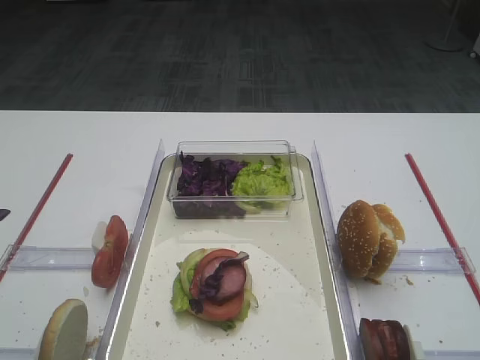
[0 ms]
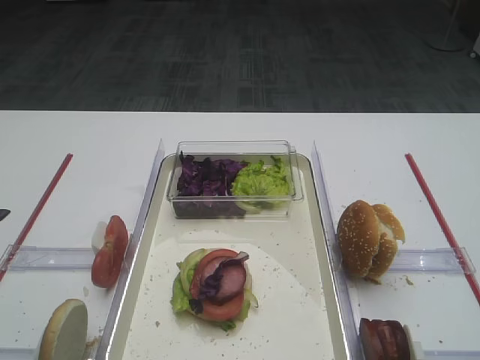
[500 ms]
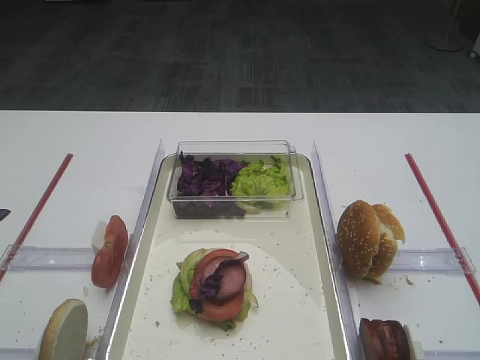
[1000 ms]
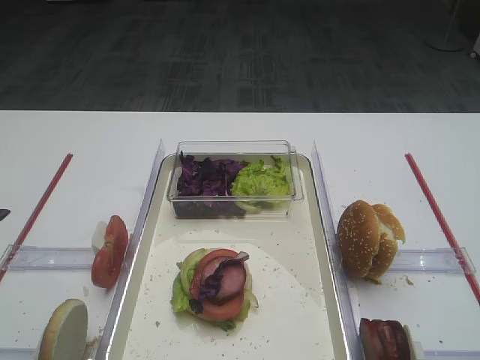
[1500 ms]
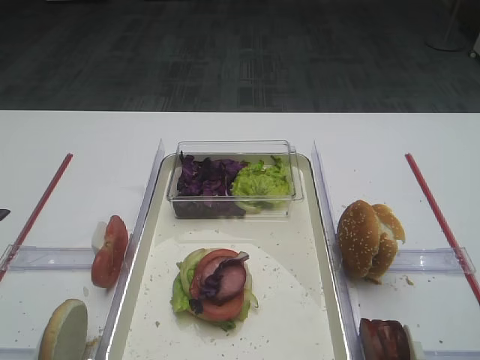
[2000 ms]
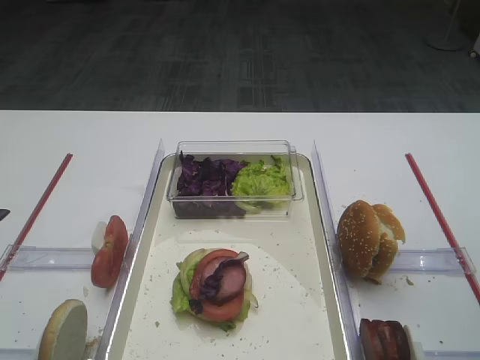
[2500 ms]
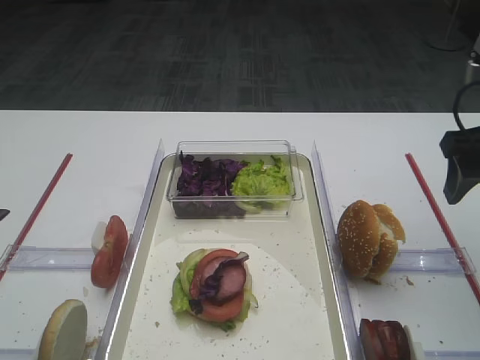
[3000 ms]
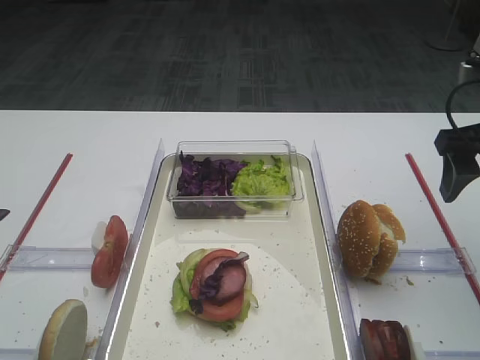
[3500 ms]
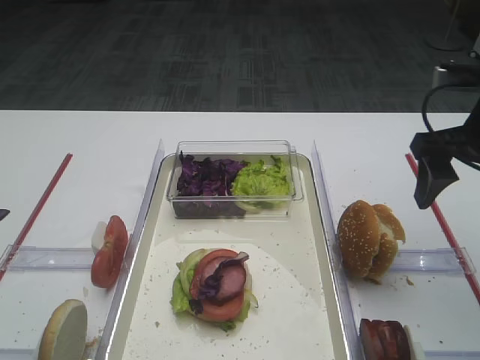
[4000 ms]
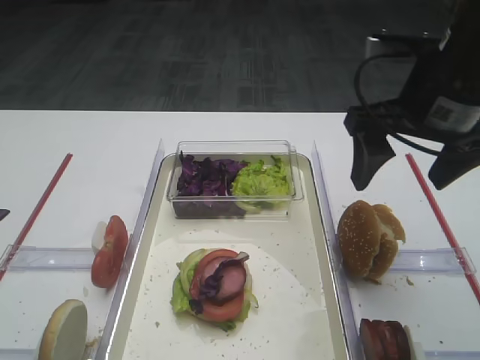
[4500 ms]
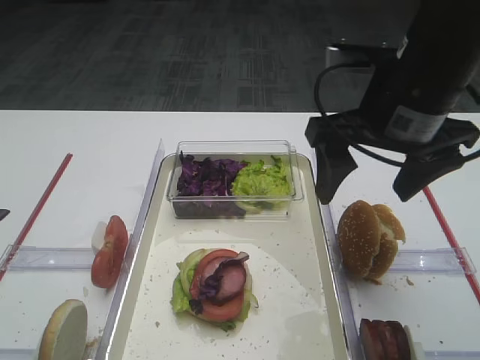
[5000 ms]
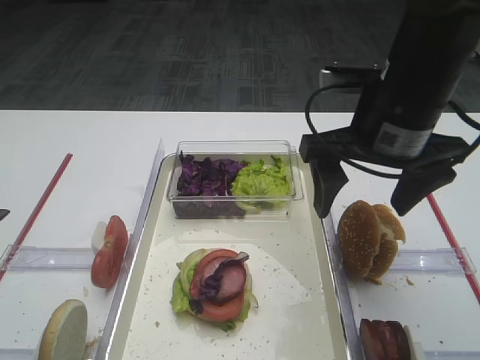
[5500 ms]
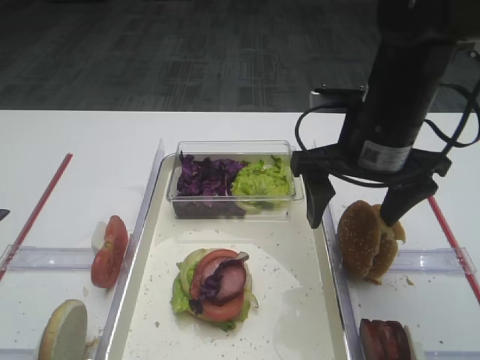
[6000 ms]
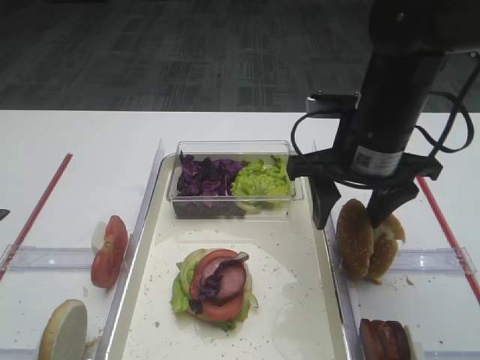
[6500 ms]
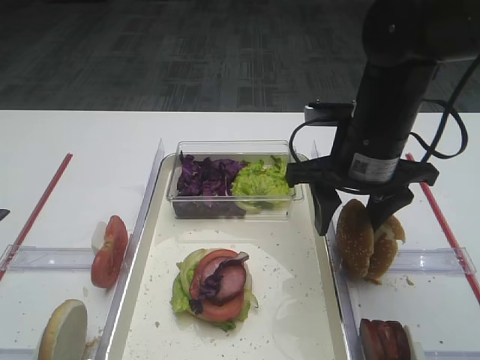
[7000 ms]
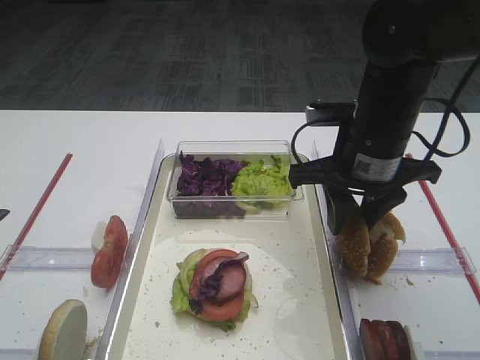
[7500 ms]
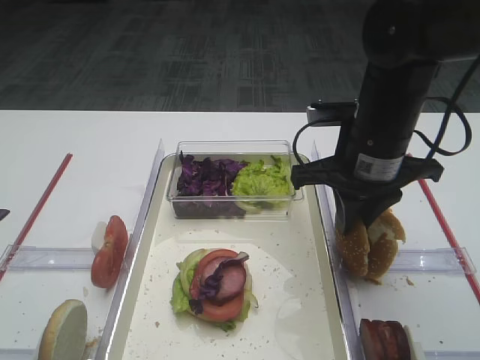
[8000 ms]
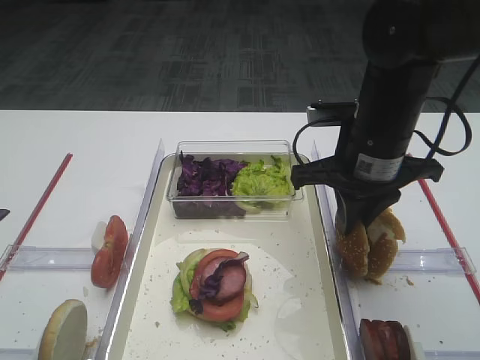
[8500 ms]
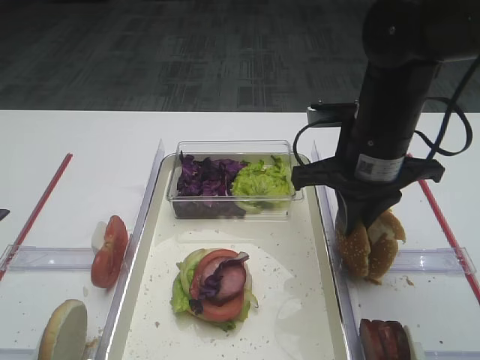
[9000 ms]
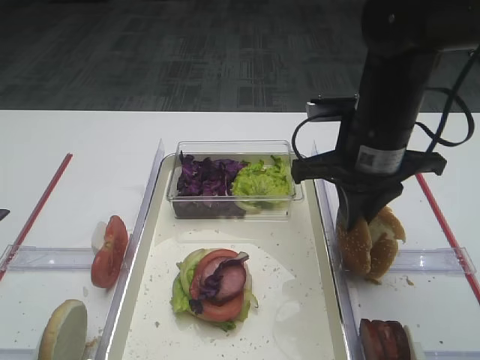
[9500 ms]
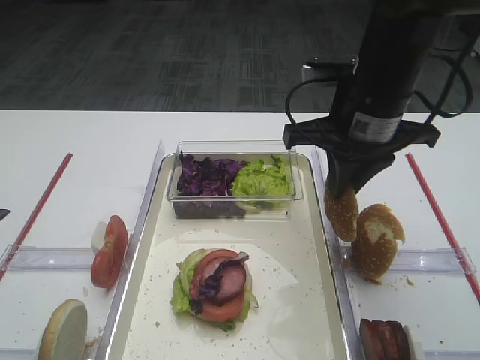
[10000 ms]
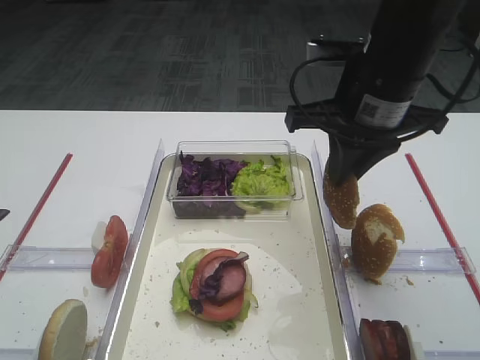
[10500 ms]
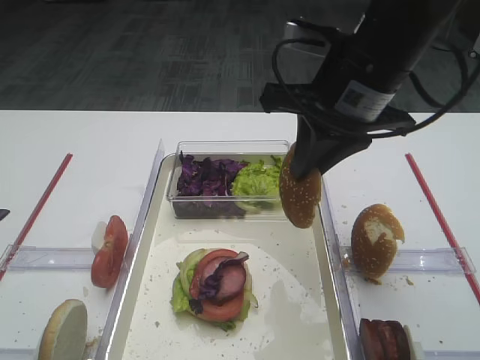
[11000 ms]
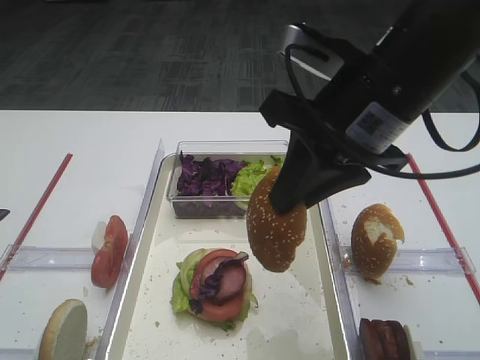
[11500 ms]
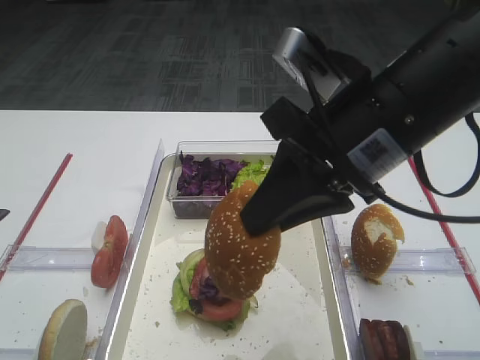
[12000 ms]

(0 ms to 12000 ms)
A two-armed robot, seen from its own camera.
2000 ms - 4000 ms: The right gripper is displaced forward by some 20 cm.
4000 ms - 6000 ms: The right gripper shifts about 10 cm to the left.
6000 ms - 8000 ms: The right gripper closes up.
8000 ms - 10000 ms: The grippers make only small movements.
10000 ms - 12000 ms: The right gripper is displaced backward by some 10 cm.

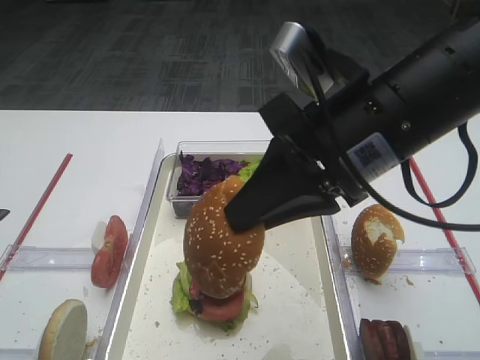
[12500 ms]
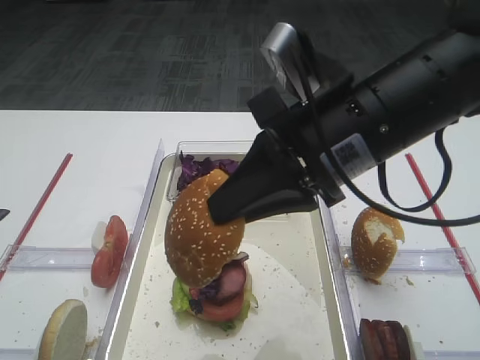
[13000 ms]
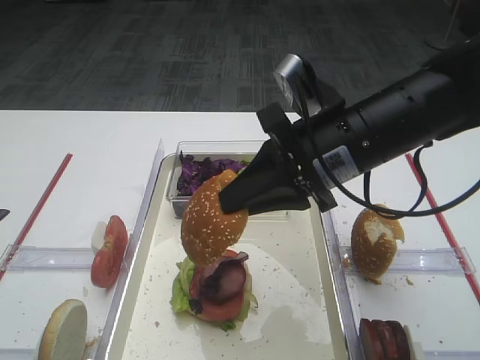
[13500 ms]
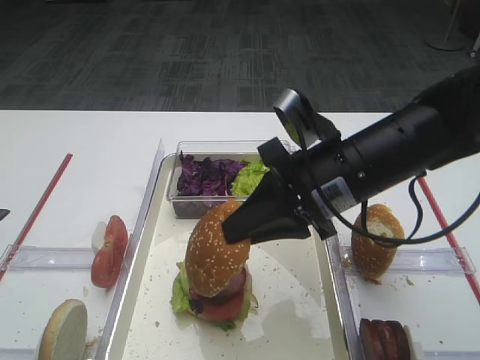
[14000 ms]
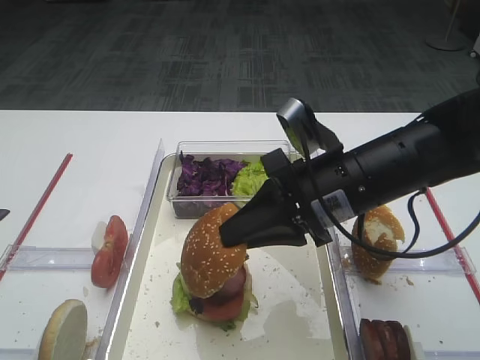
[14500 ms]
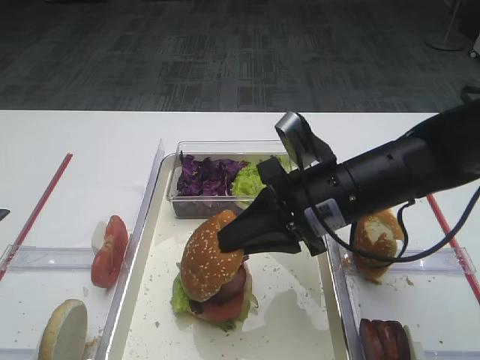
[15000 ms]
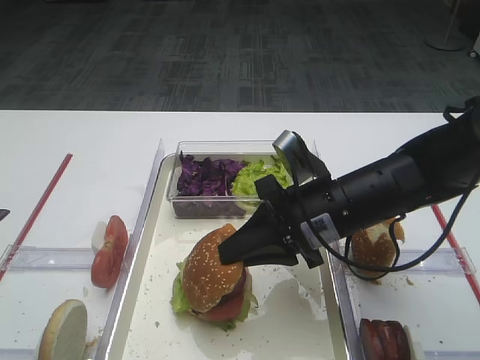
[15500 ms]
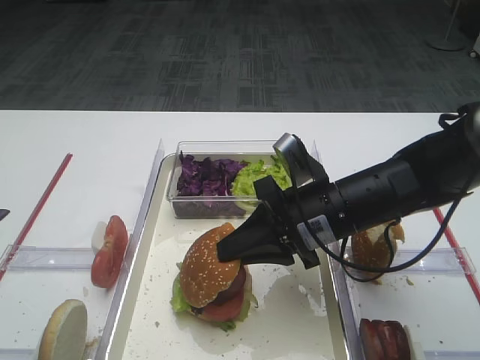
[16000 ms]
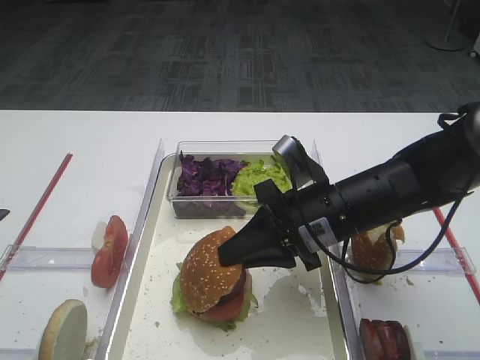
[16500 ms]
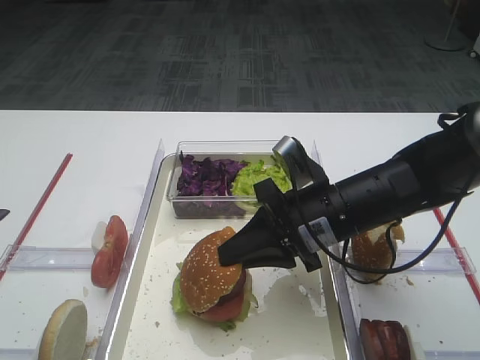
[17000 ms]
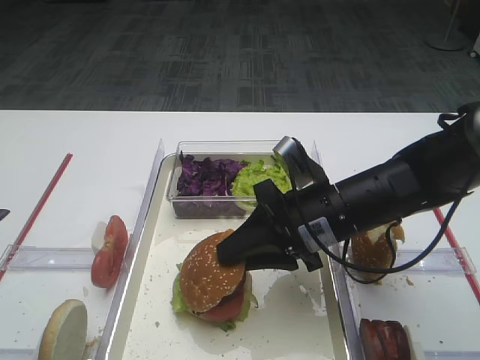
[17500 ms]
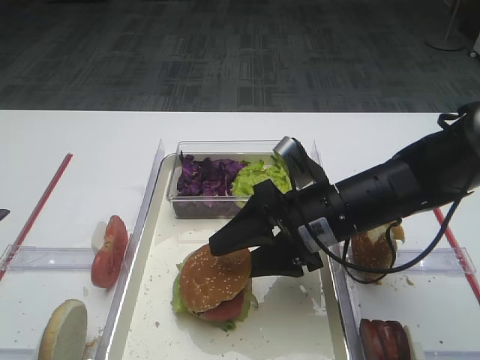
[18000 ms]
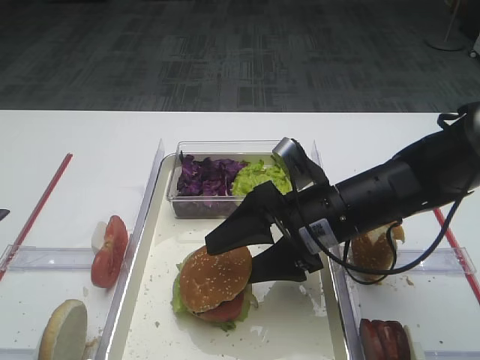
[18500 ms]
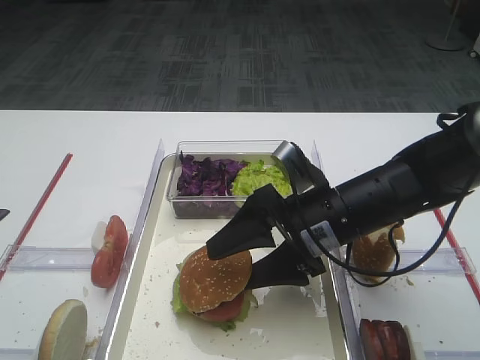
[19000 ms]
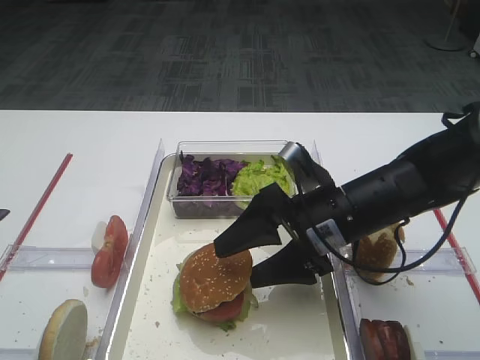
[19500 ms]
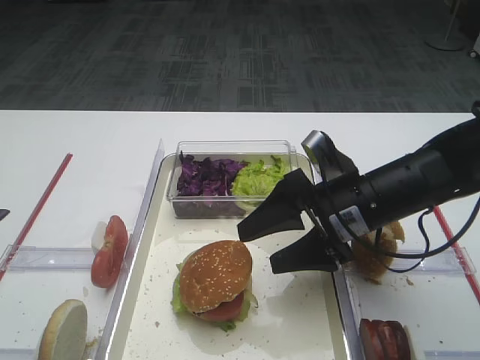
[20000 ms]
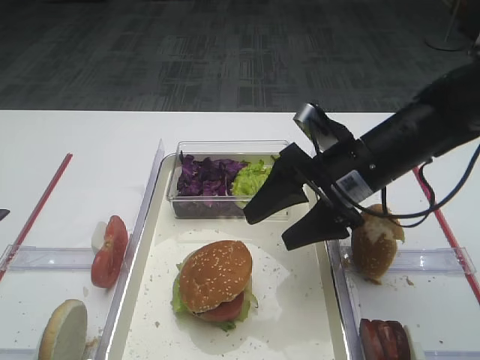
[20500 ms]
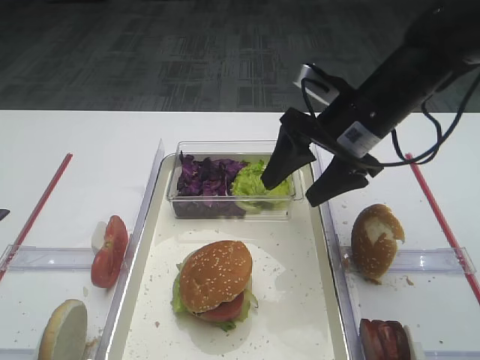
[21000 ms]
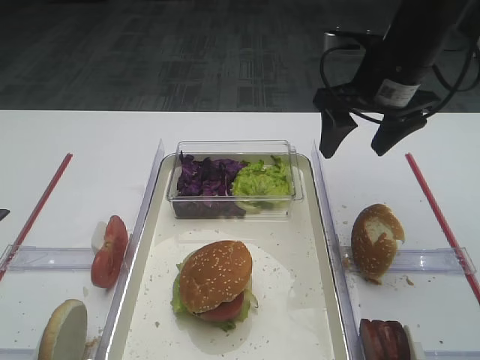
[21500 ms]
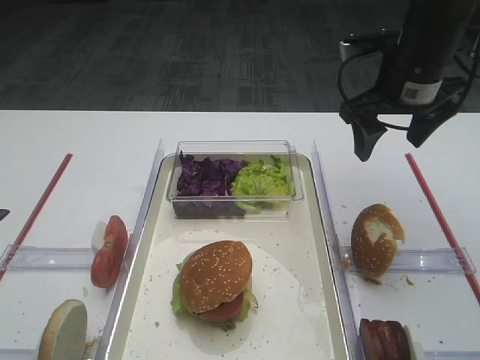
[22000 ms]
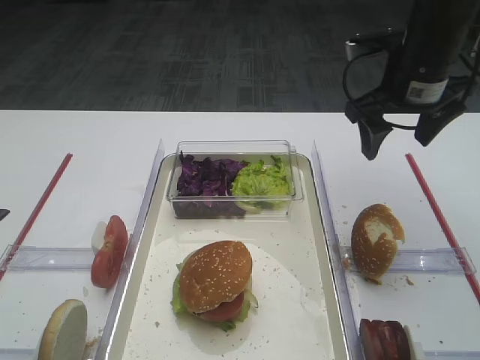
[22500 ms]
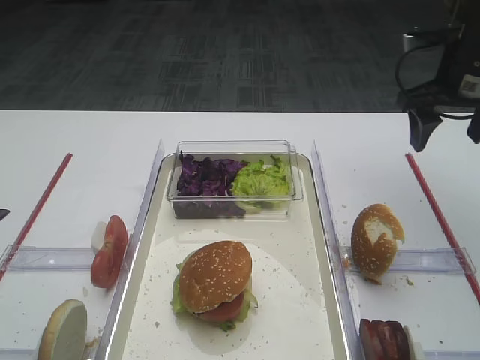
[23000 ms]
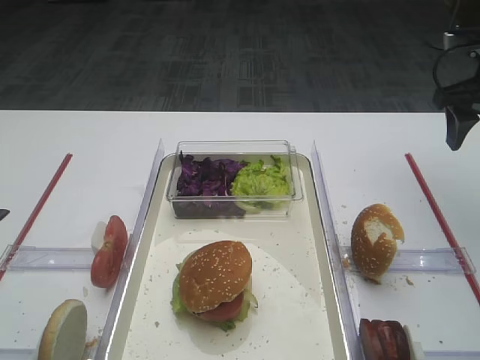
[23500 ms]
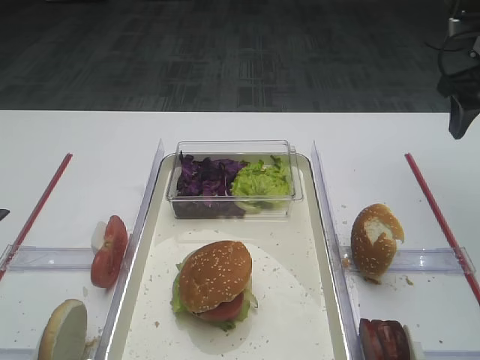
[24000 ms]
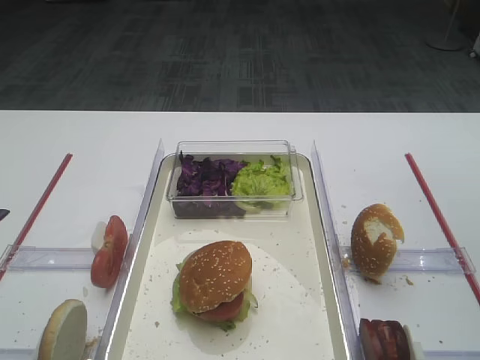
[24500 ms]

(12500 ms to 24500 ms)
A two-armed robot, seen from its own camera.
Step, 12500 ms - 19500 ms: Place the hamburger lid on the purple cabbage with the right gripper.
12500 ms - 14500 ms: The right gripper shifts approximately 10 cm downward.
14500 ms - 16500 ms: The right gripper shifts some 5 cm downward.
16500 ms - 18500 ms: The right gripper opens up.
18500 ms - 20500 ms: The right gripper changes place by approximately 5 cm.
20500 ms - 22500 ms: The right gripper moves upward, forward and to the right, approximately 15 cm.
22500 ms - 24500 ms: The right gripper shifts some 15 cm to the right, upward and backward.

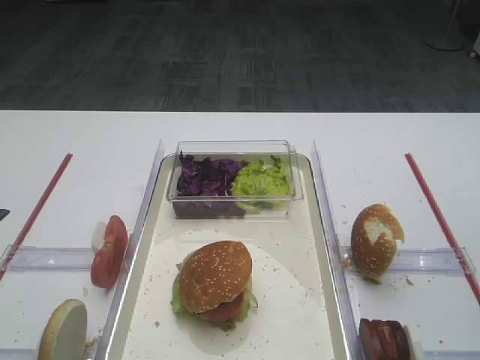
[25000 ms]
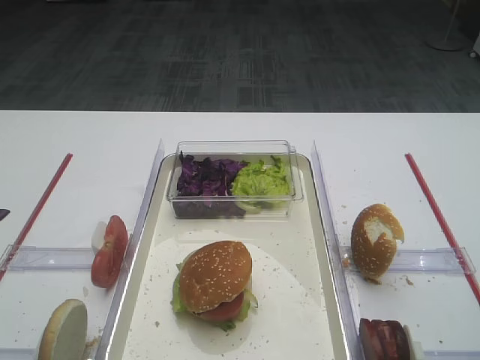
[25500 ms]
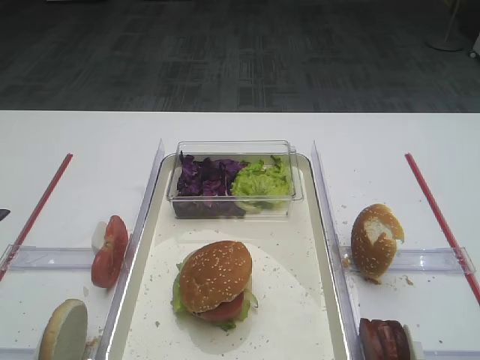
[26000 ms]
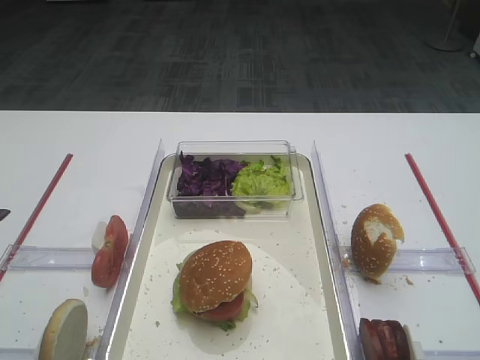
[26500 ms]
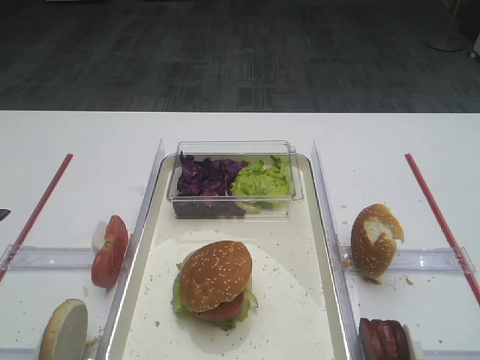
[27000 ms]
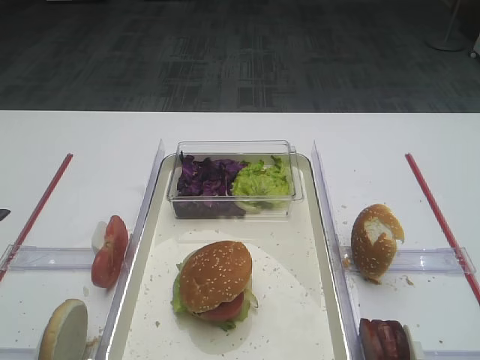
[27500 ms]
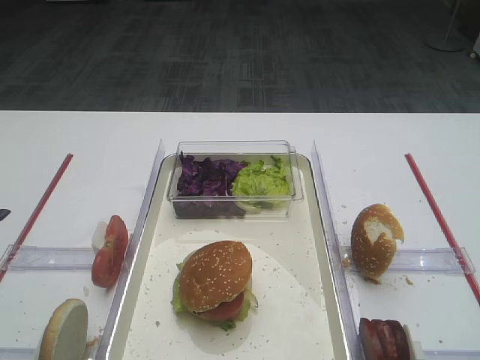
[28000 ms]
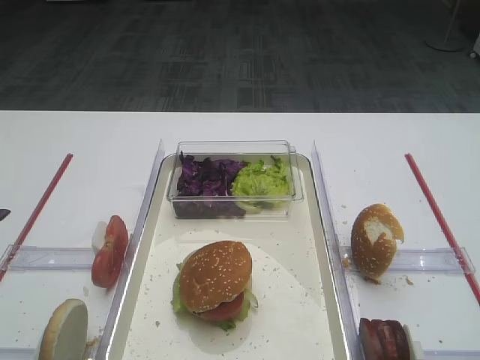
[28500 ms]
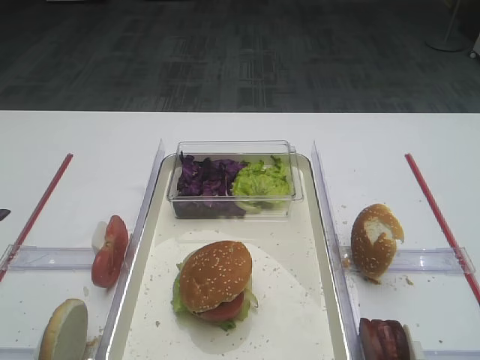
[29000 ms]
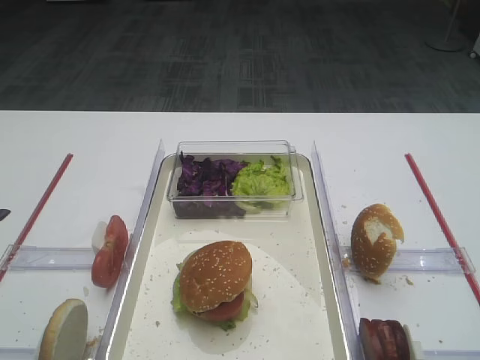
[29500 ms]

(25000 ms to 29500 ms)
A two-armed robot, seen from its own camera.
27000 ms - 29500 ms: The two grippers keep their place.
